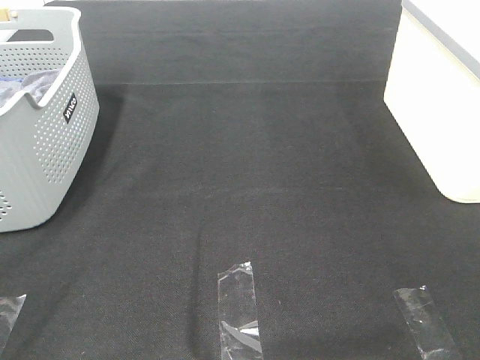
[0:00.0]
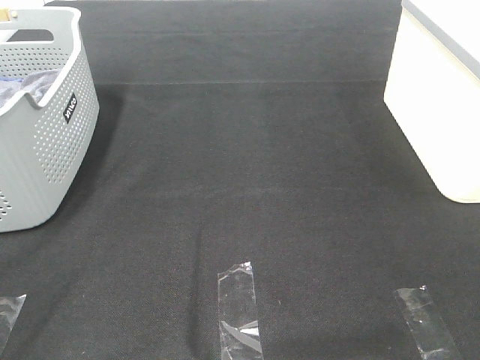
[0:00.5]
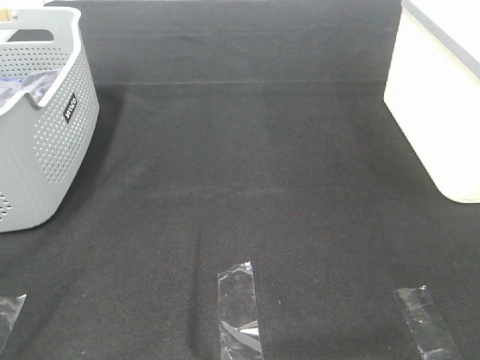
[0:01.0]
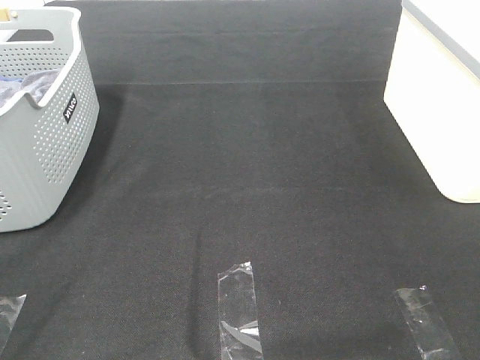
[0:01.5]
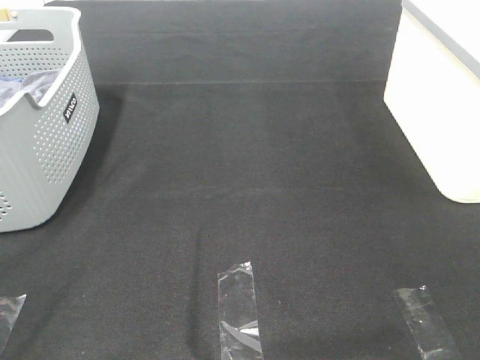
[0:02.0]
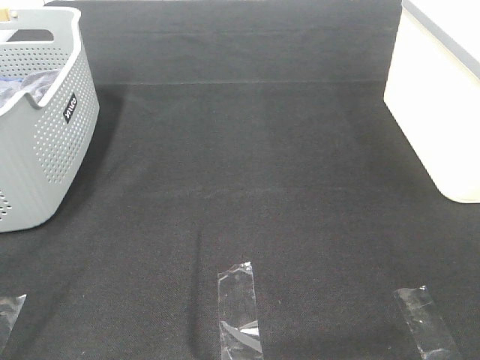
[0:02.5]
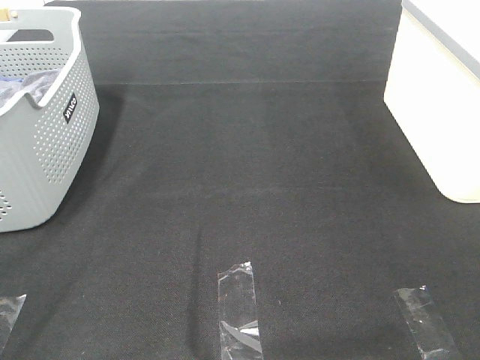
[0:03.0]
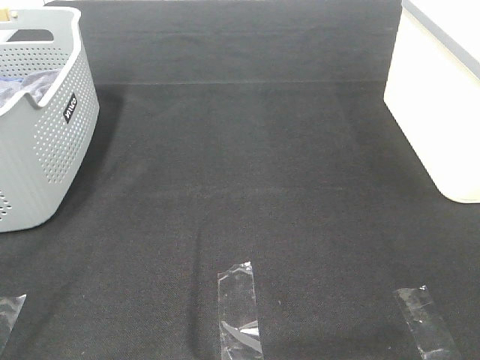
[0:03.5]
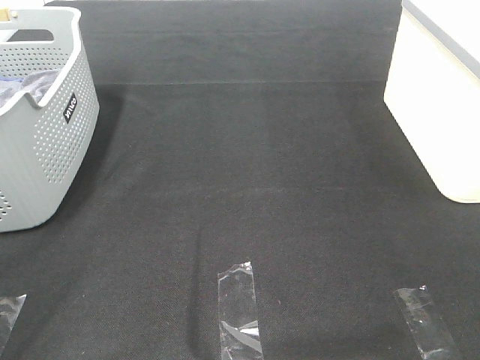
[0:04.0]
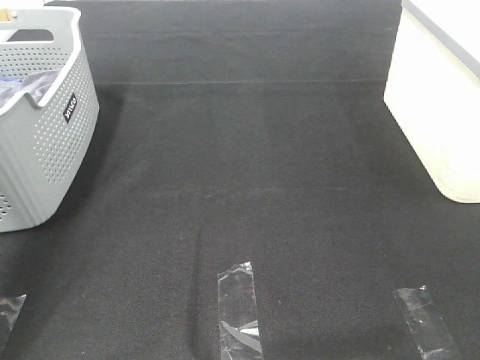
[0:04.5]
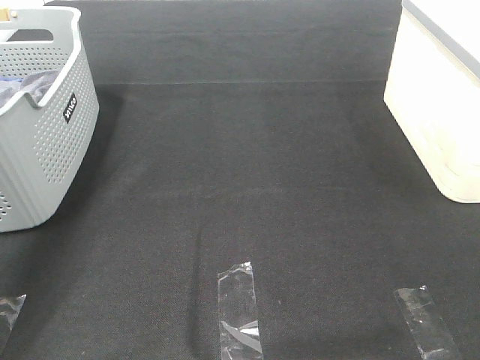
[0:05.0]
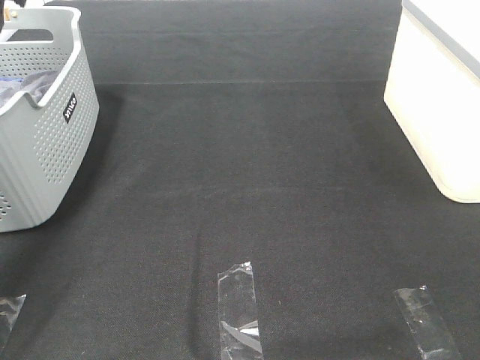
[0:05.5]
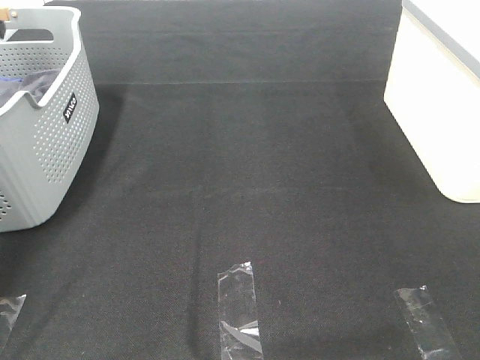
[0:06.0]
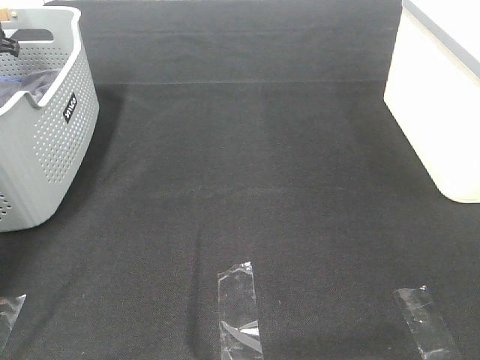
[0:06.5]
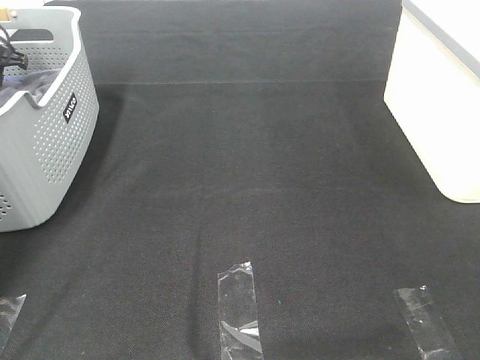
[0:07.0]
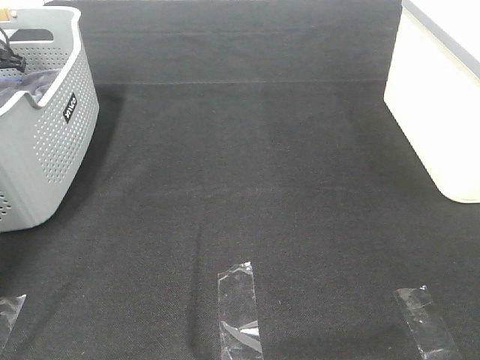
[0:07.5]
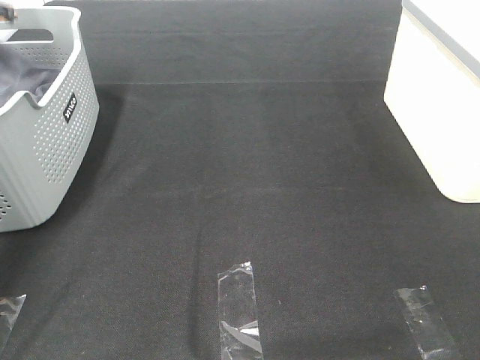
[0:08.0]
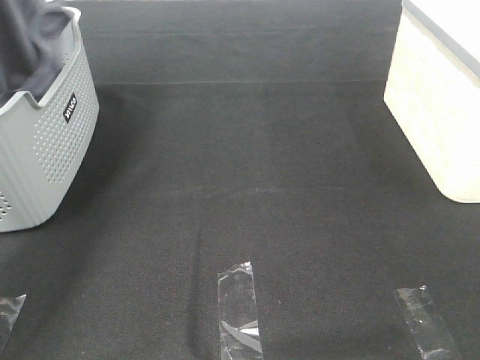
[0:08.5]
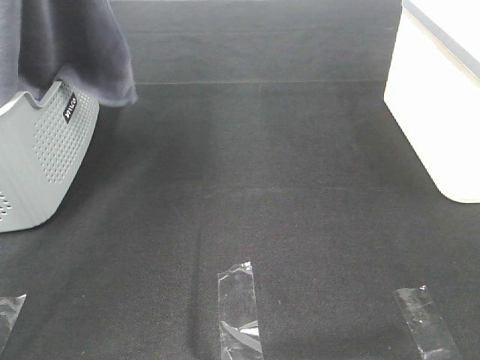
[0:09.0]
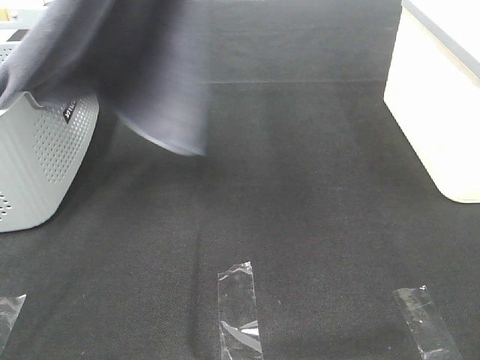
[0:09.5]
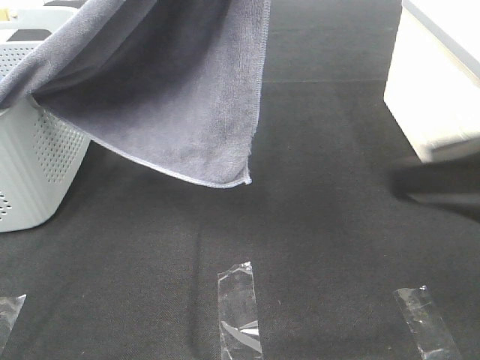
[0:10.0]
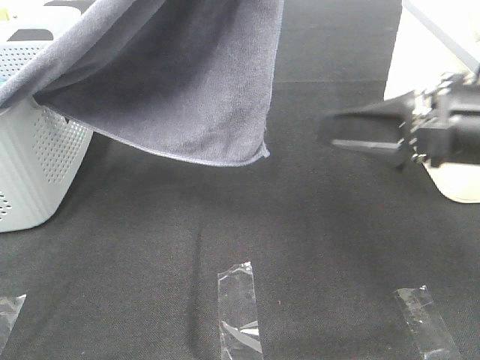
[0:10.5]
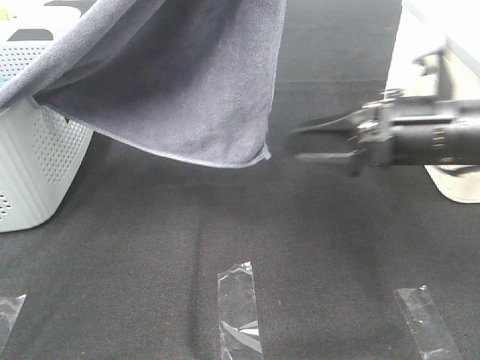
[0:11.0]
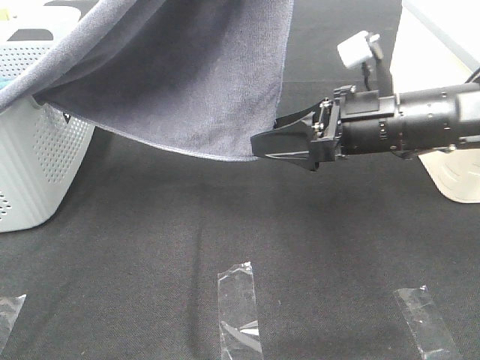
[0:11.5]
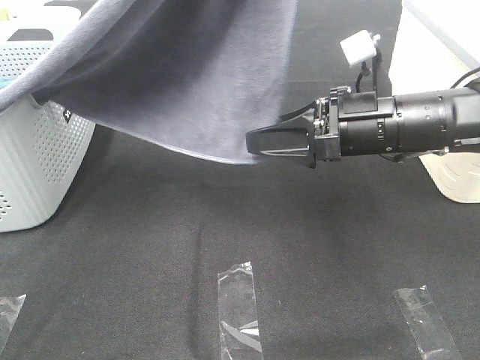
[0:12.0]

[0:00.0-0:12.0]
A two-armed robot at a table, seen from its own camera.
Task of the whole recording: Remove the towel and place it.
Step, 9.0 to 11.5 s: Right hand: grab a corner of the grey towel and straighten it.
0.0 to 2.0 s: The two grippers keep their place.
4.0 to 6.0 s: The left gripper heads forward, covering approximately 50 cm.
6.0 to 8.0 s: The left gripper moves some 5 cm downward and comes back, and closes its fingers.
8.0 to 10.0 s: The left gripper heads to the right, backward and upward, covering approximately 50 cm. Meanwhile the right gripper shifts some 15 cm forward.
10.0 to 12.0 s: The right gripper goes roughly 20 cm forward, downward and to the left.

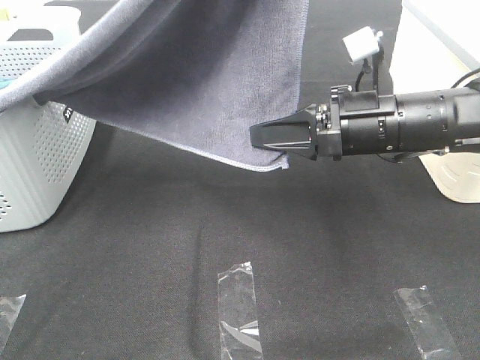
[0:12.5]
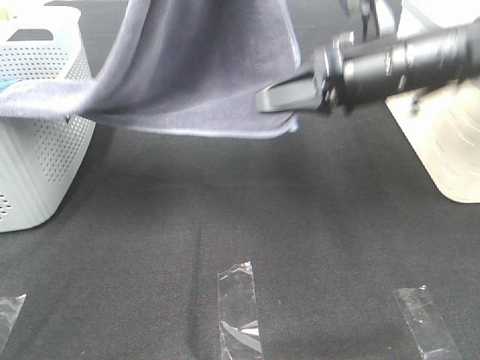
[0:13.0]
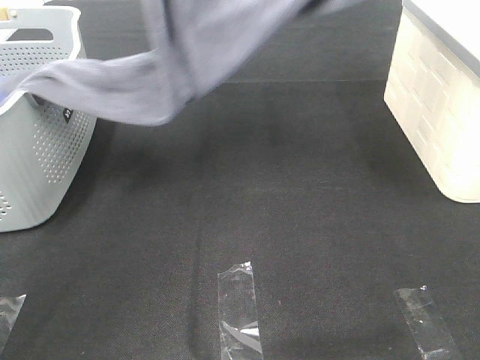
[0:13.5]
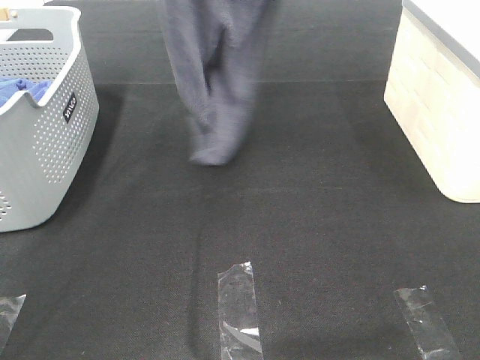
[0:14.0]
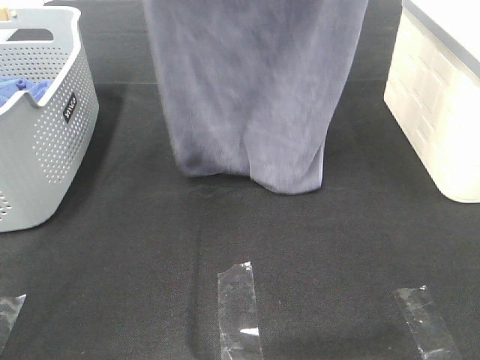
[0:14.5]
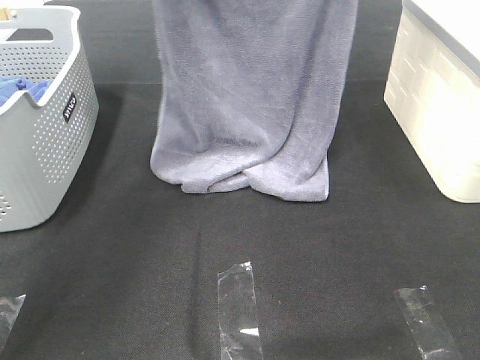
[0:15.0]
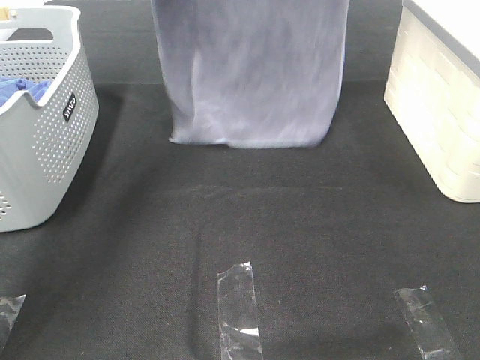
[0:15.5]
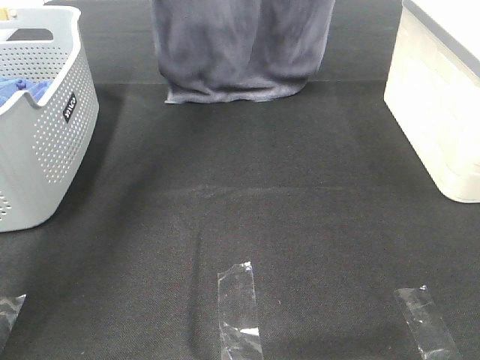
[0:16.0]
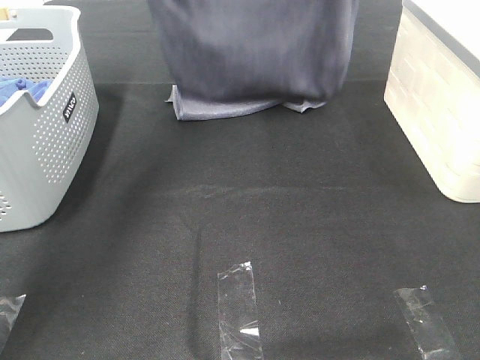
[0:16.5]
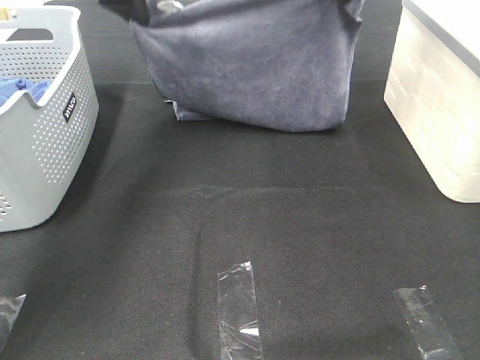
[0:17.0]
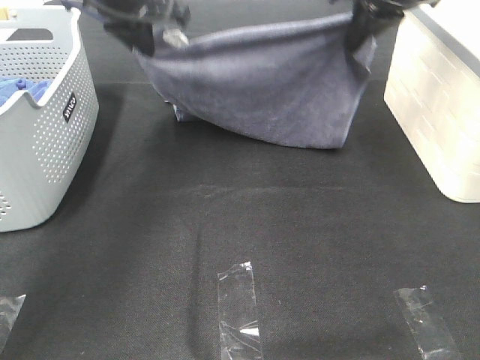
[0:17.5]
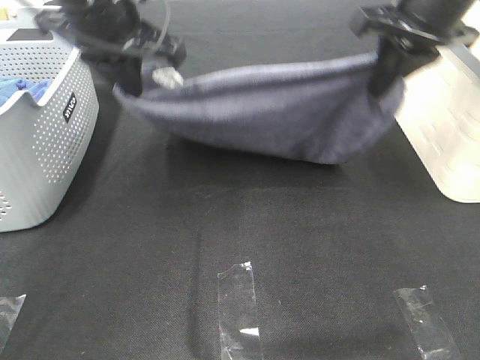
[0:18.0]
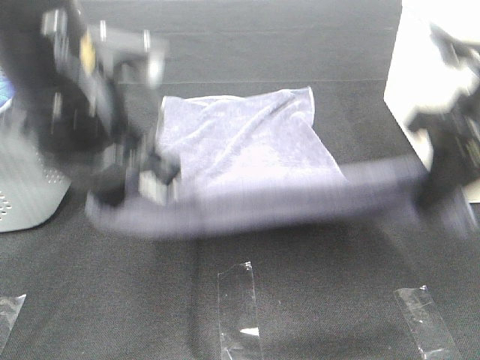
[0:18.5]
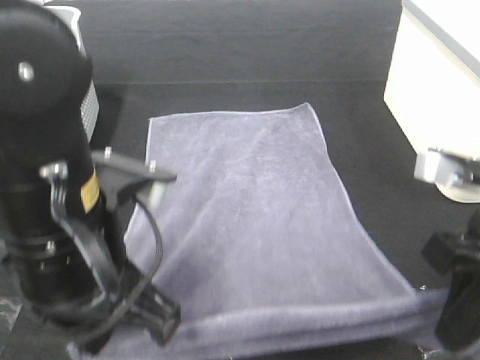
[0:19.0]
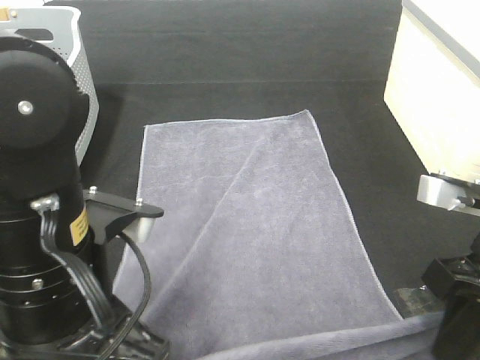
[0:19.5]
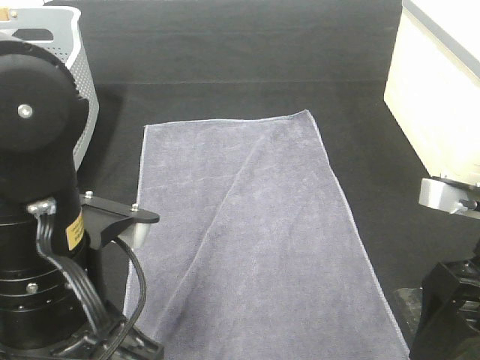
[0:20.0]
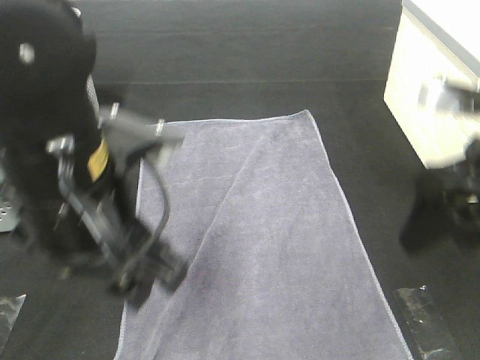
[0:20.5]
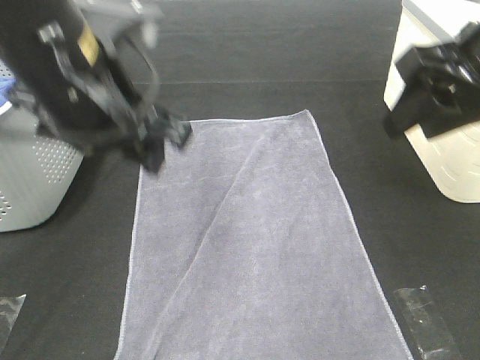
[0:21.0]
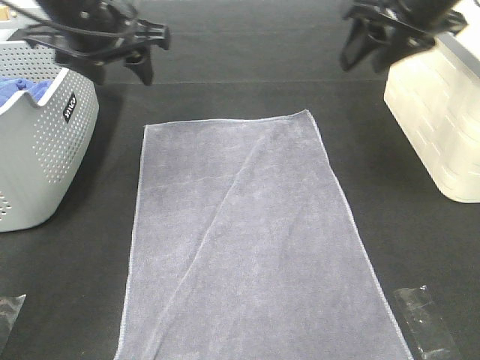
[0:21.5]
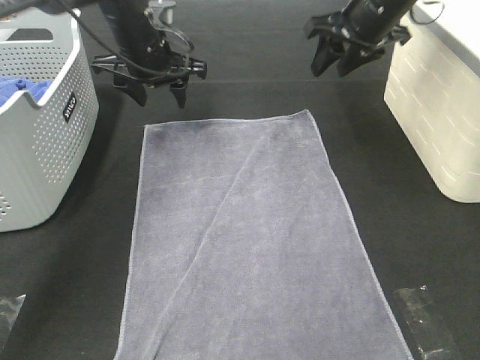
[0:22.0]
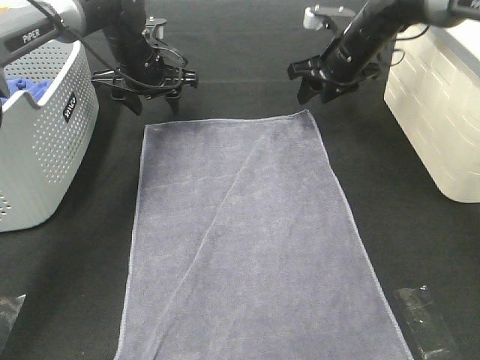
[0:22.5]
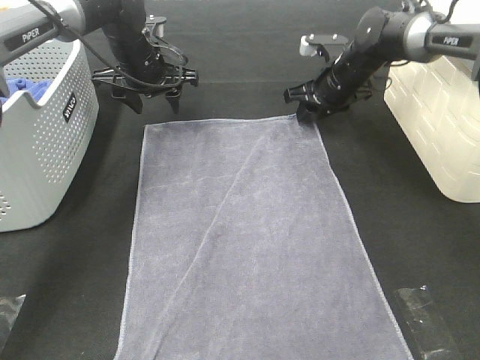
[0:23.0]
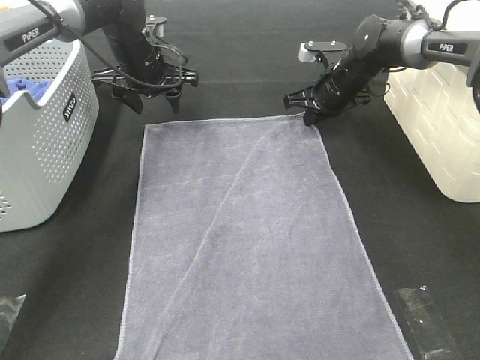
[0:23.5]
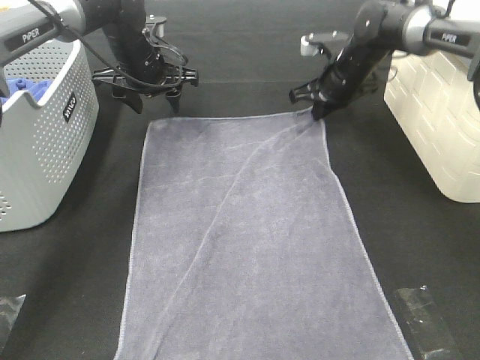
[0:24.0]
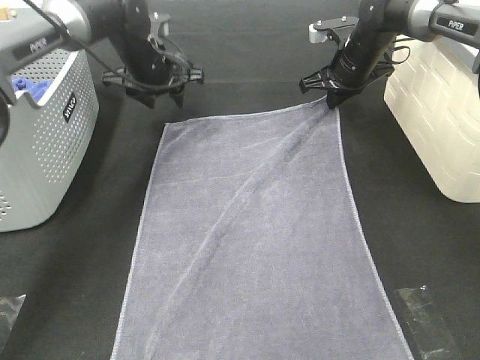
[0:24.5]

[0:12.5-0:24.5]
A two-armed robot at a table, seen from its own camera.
Task of the whole recording: Remove the towel and place it.
Step, 12.5 to 16.0 s: Left hand: spread the grey towel flat on the table.
Step, 12.5 to 16.0 s: Right hand: spread the grey towel flat on the table.
Step, 16.5 to 23.5 s: Left hand:adjust the gray towel.
Step, 16.5 to 23.5 s: Right hand:adjust the gray towel.
12.5 to 14.5 s: The right gripper shifts some 35 cm upward. The left gripper is displaced to the left and forward by about 15 cm.
14.5 to 16.5 s: The right gripper moves up and down over some 15 cm, changing direction 2 times. The left gripper goes up and down, some 20 cm each way, reversing 2 times.
16.5 to 18.5 s: The left gripper moves backward, approximately 30 cm, while the right gripper is displaced backward and downward by approximately 25 cm.
18.5 to 20.5 s: The right gripper opens its fingers. Meanwhile the left gripper opens up.
20.5 to 22.5 s: Both grippers move forward, roughly 30 cm.
22.5 to 24.5 s: The right gripper closes up.

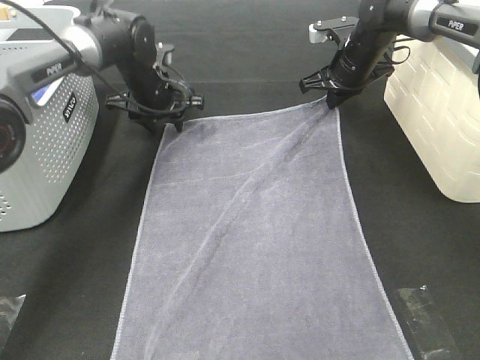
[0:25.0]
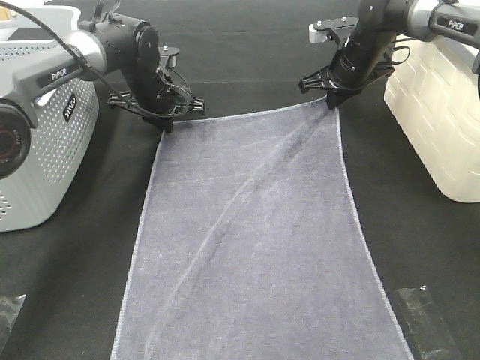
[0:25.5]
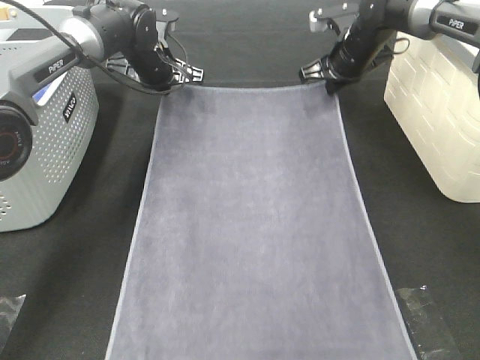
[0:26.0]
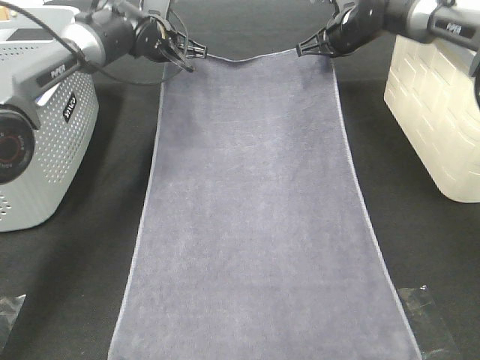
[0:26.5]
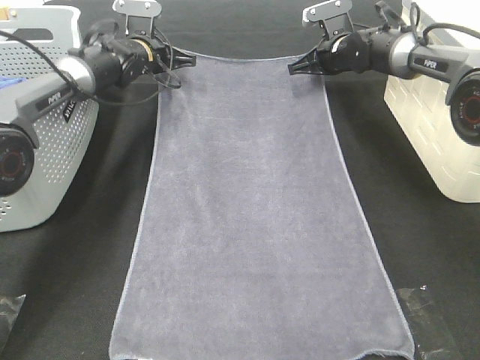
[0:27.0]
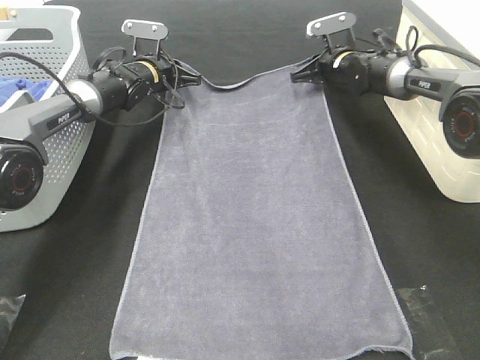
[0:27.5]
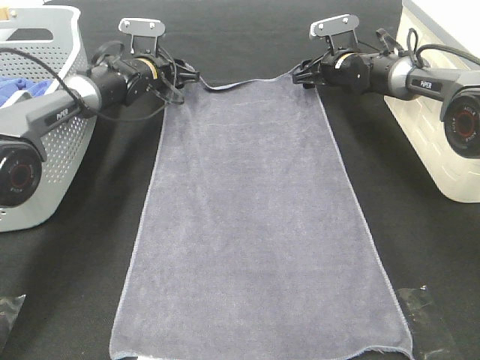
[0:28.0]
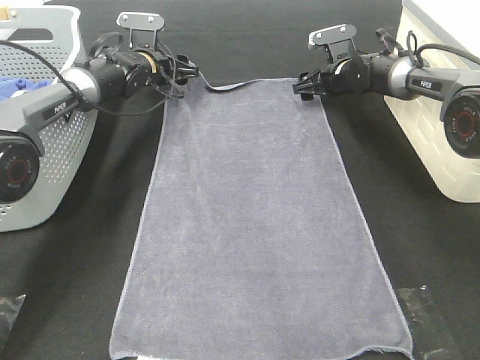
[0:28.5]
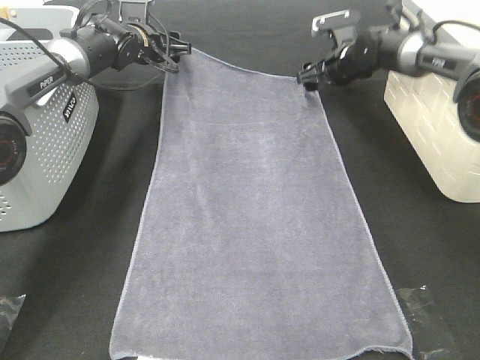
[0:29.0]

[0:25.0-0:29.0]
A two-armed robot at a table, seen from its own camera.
Task of the whole recording: Remove the towel and place it.
25.0 to 27.0 s: The left gripper shifts roughly 5 cm forward, and closes, while the right gripper ends up roughly 5 cm from where it was.
27.0 to 29.0 s: The left gripper opens up; the right gripper opens its fingers.
